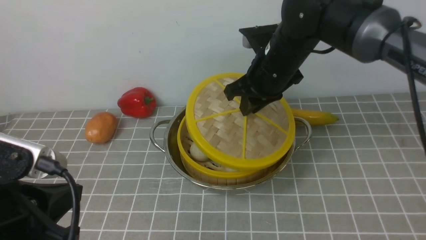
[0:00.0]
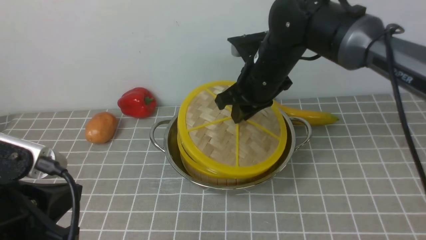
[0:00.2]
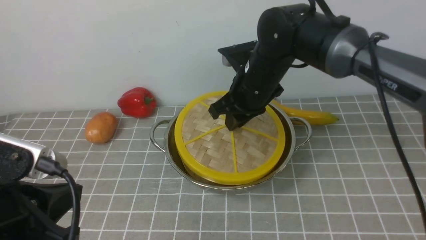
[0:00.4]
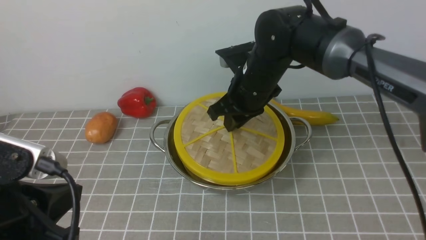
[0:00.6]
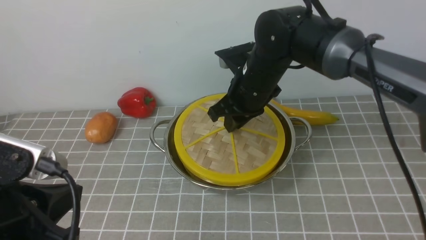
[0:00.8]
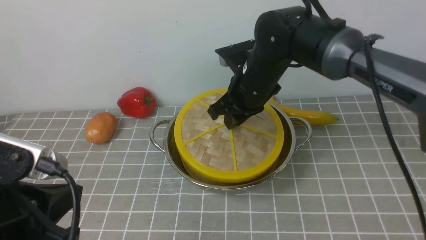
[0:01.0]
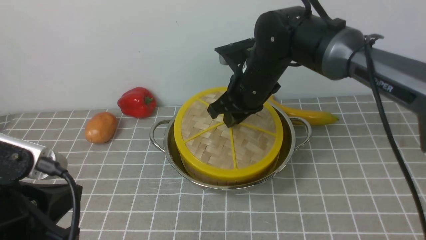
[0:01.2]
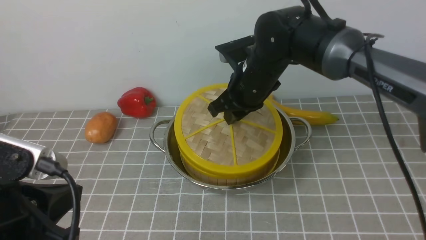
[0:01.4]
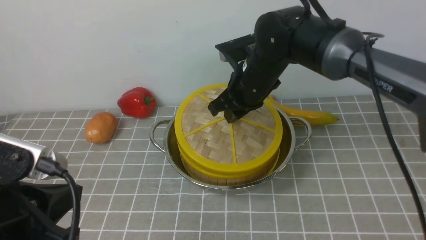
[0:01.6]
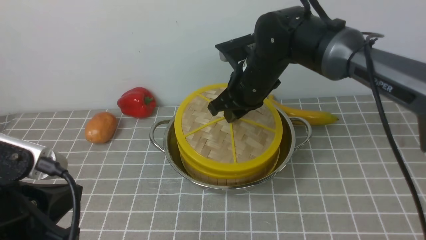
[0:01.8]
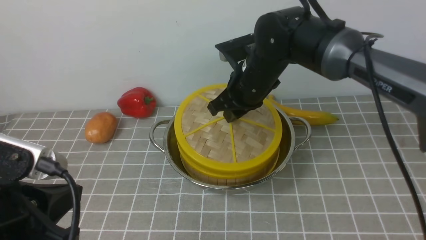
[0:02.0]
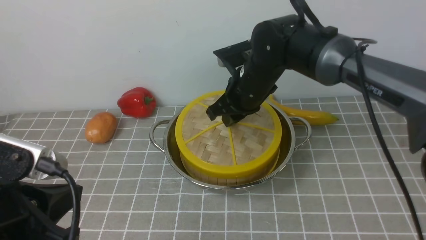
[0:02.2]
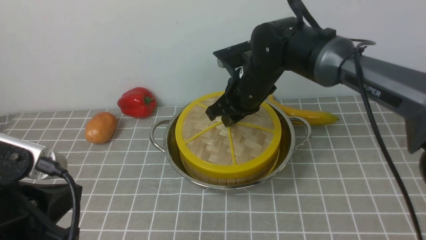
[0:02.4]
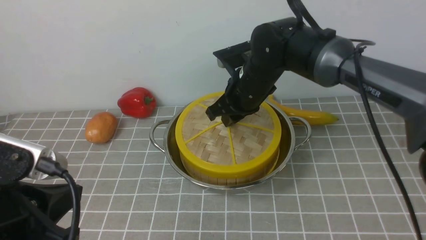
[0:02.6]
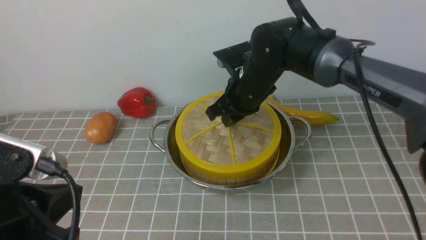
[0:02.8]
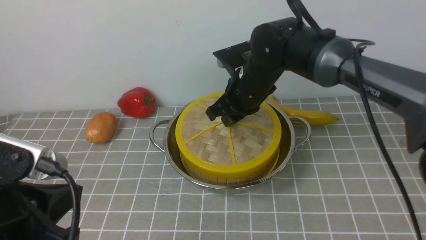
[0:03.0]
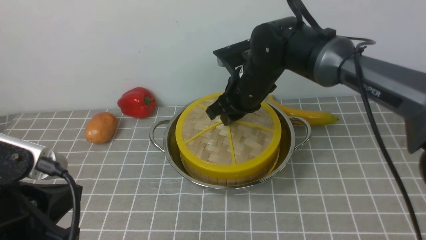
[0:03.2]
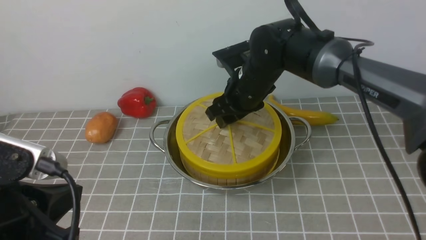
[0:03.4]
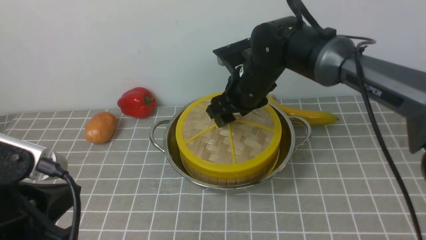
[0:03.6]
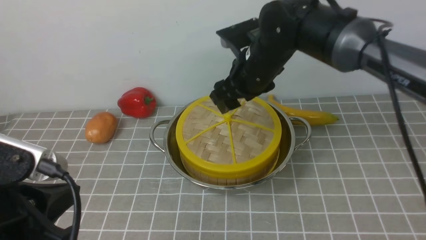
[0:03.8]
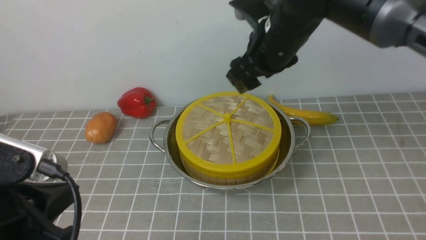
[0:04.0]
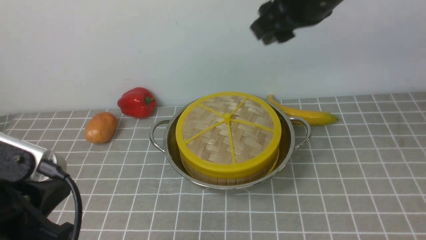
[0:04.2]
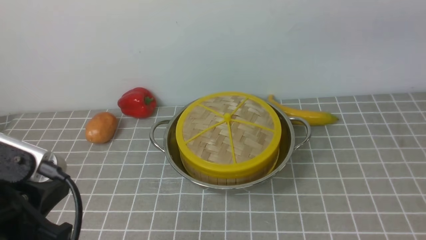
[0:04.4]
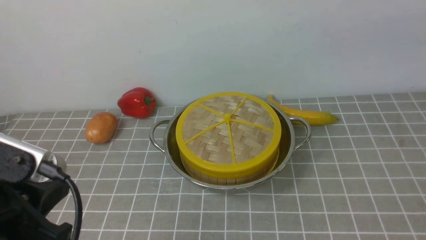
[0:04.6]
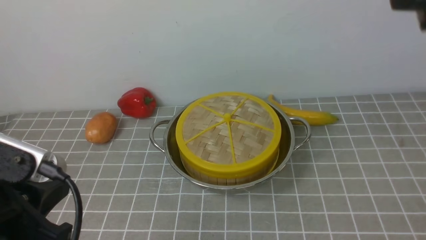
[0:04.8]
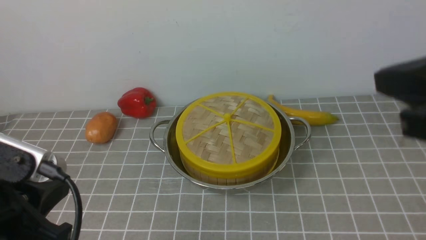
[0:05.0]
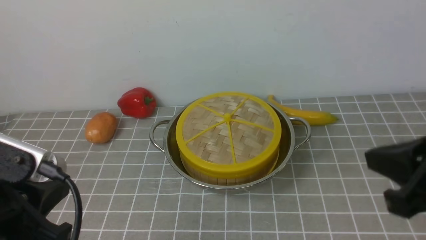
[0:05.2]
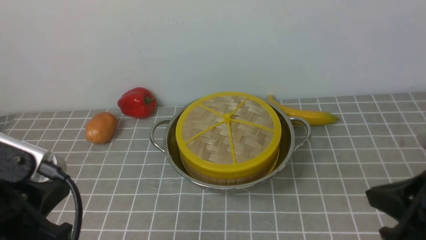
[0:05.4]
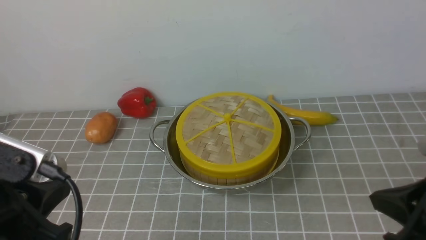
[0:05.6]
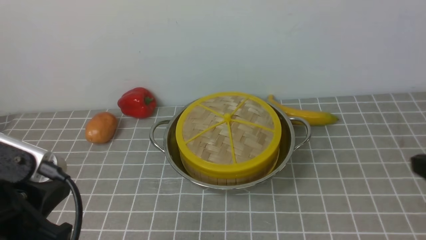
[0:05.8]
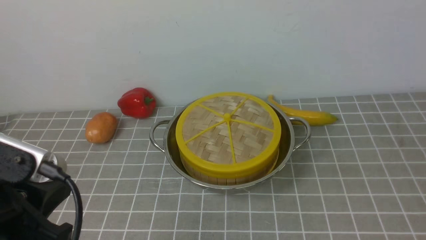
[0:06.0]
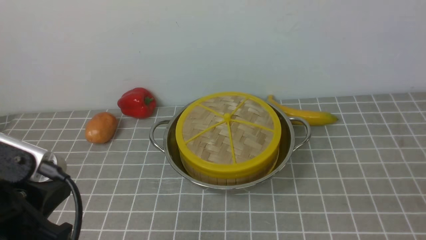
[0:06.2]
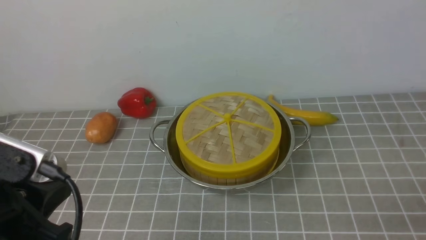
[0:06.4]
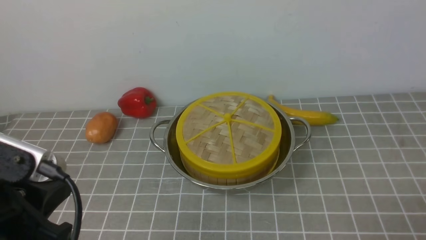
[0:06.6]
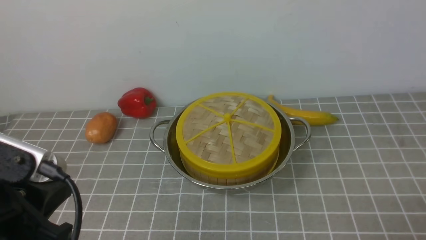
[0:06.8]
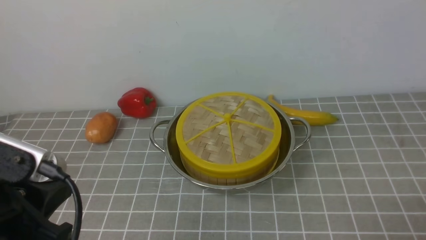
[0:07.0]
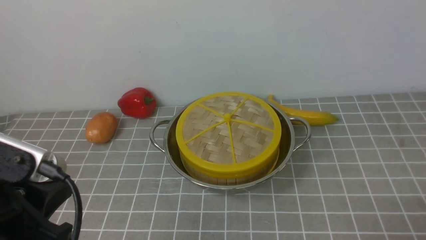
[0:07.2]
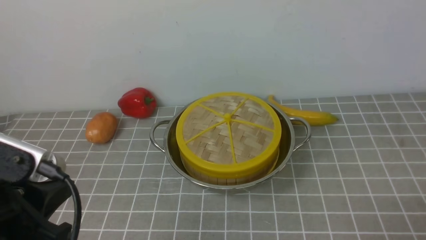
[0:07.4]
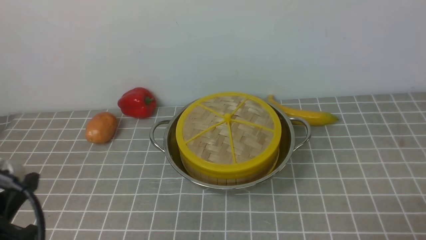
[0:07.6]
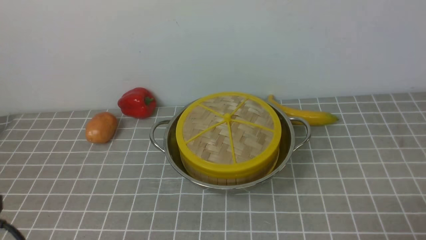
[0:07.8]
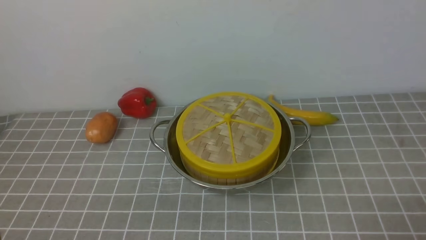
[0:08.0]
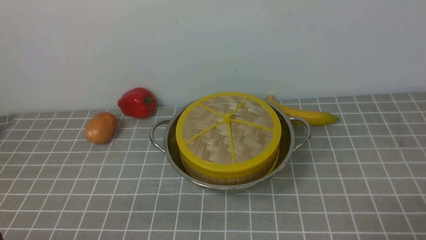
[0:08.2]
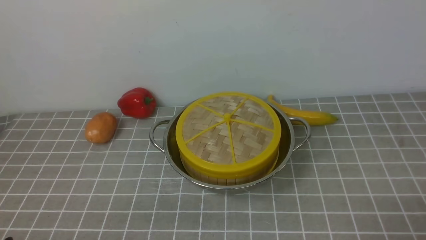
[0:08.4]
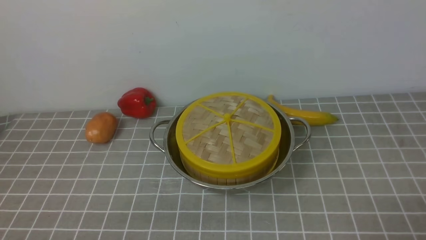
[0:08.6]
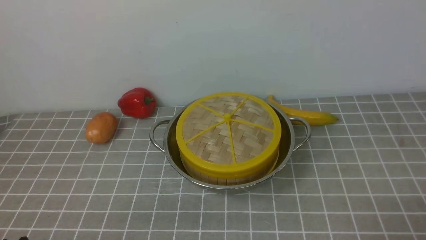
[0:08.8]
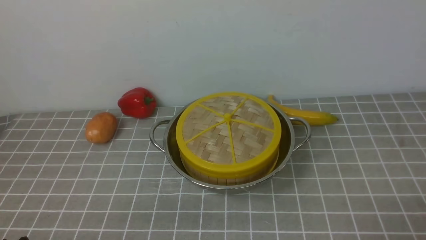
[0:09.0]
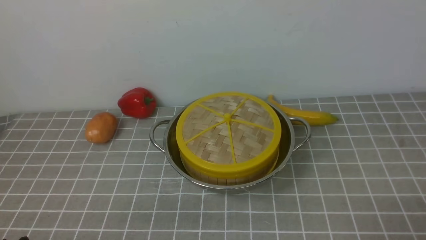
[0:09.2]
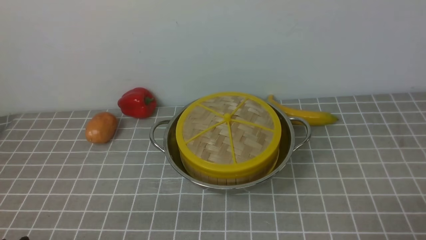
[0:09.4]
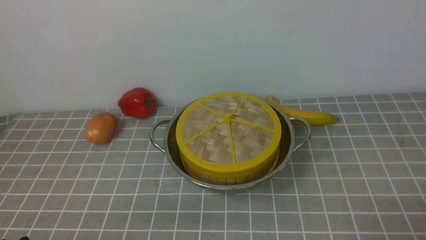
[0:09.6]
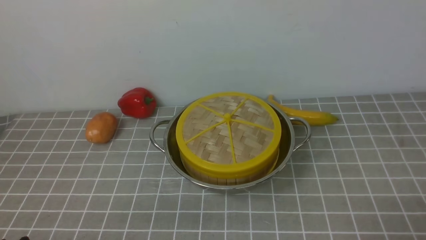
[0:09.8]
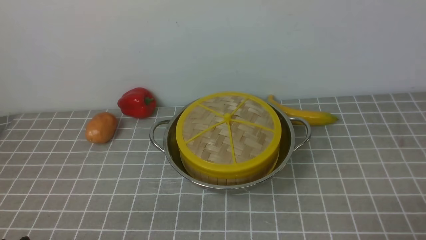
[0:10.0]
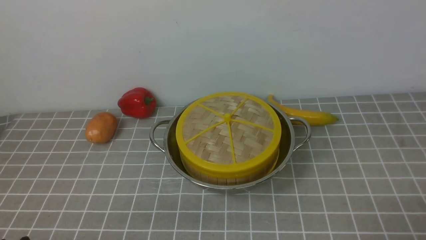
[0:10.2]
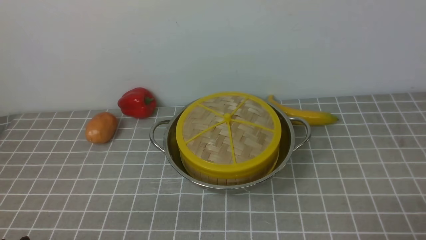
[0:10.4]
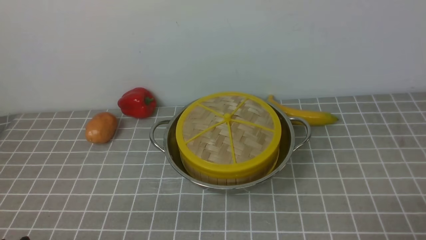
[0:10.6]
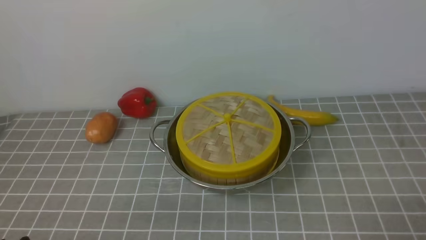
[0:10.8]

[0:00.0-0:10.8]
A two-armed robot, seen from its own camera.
Task of the whole recording: place the steamer in the pot on the grey tablecloth, and put the lid on the steamer.
Step, 0:00.0 to 0:03.8: use the right arm to place the steamer lid on the steamer.
0:00.0 to 0:03.0: The grippers make only small movements.
0:03.0 to 0:04.6: The right gripper is displaced upward, backward and to the right by approximately 35 cm, and closes.
0:06.2 to 0:07.8: The left gripper heads backward, covering roughly 5 cm.
0:09.2 to 0:10.8: Neither gripper changes place.

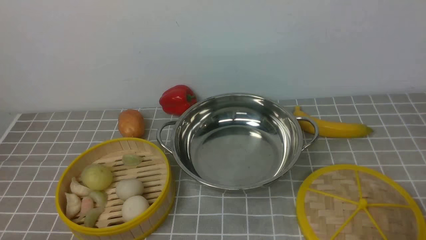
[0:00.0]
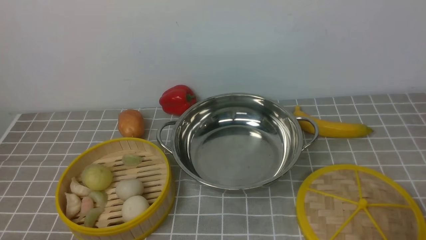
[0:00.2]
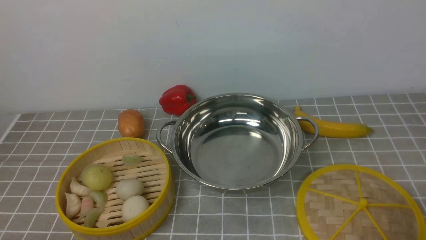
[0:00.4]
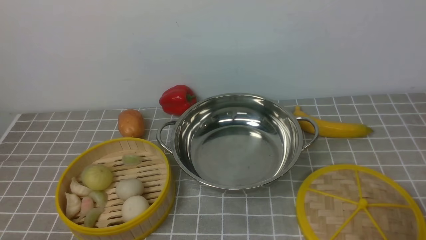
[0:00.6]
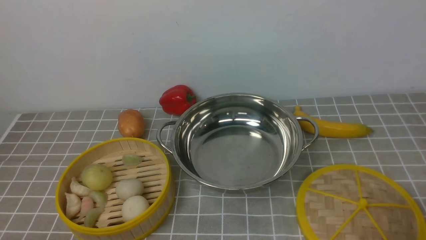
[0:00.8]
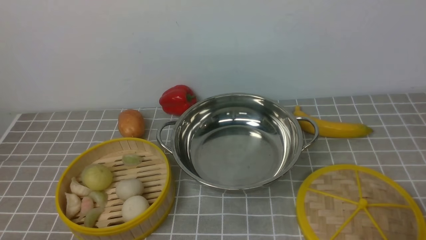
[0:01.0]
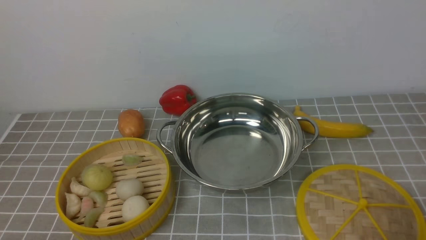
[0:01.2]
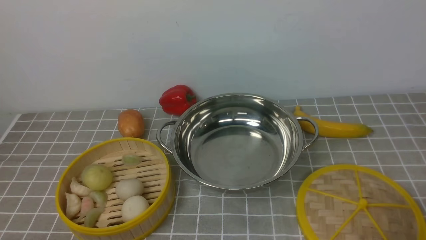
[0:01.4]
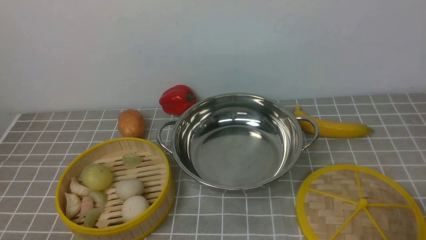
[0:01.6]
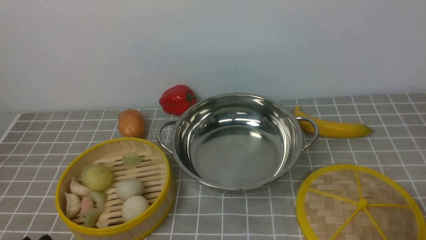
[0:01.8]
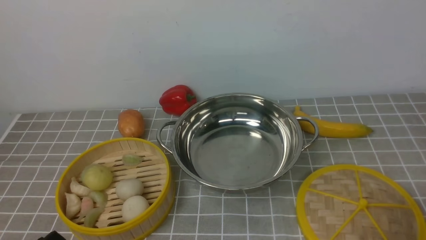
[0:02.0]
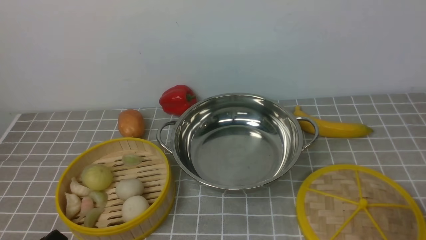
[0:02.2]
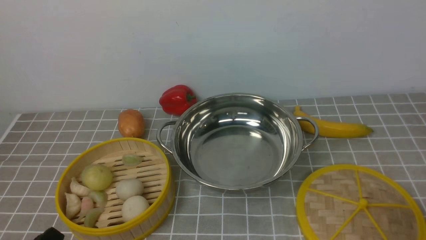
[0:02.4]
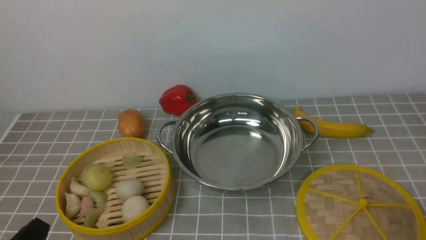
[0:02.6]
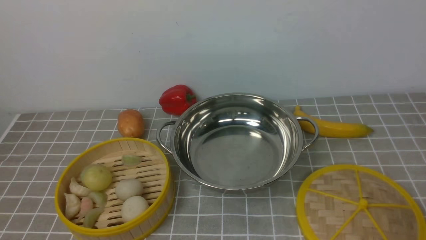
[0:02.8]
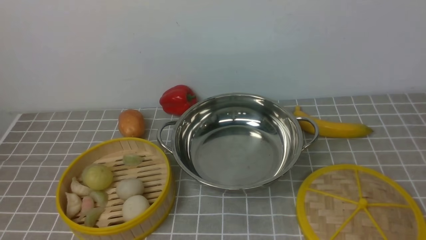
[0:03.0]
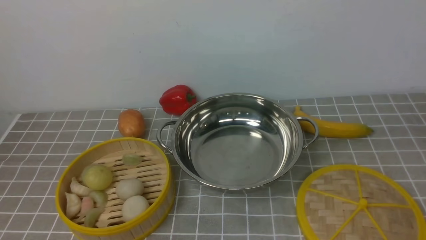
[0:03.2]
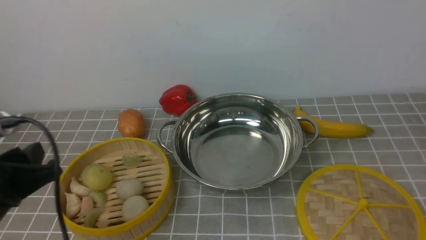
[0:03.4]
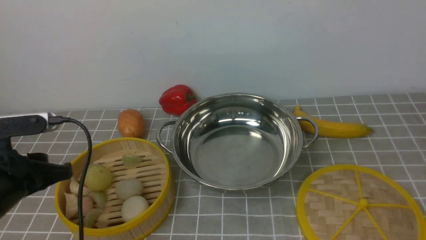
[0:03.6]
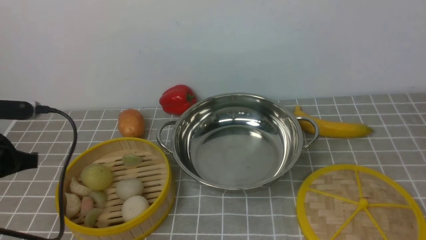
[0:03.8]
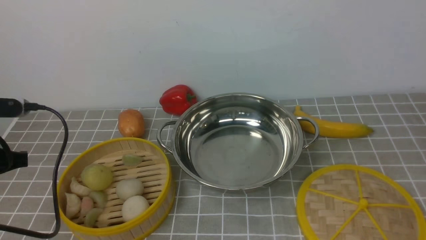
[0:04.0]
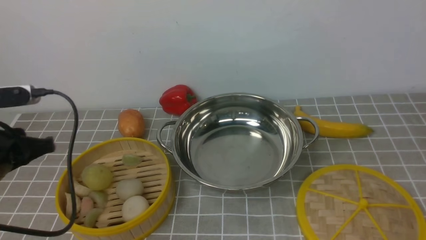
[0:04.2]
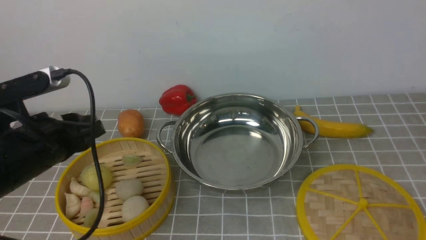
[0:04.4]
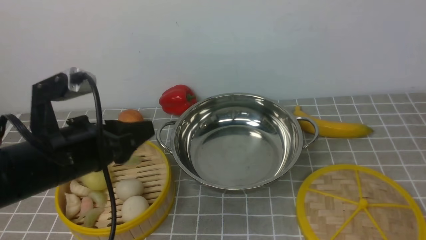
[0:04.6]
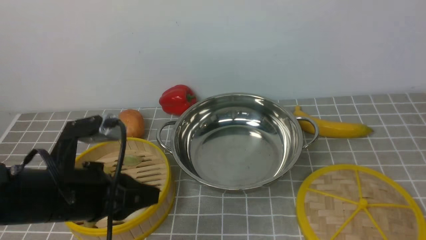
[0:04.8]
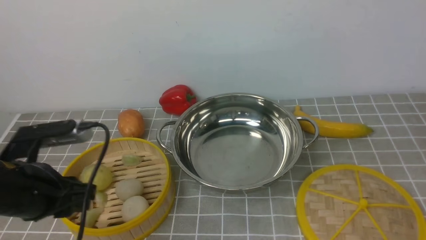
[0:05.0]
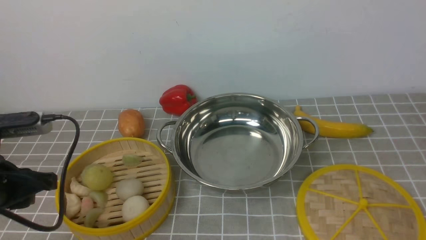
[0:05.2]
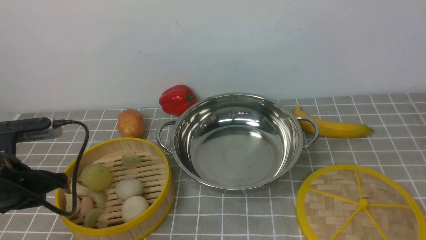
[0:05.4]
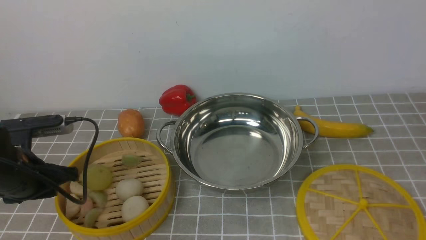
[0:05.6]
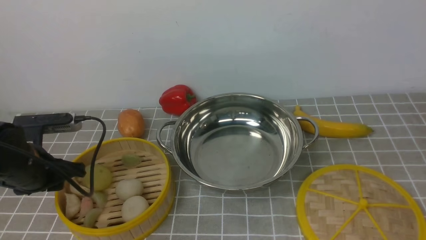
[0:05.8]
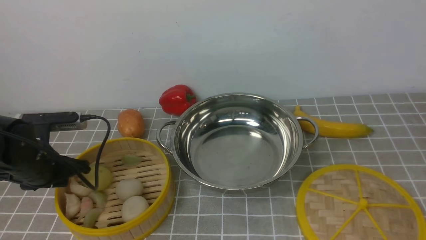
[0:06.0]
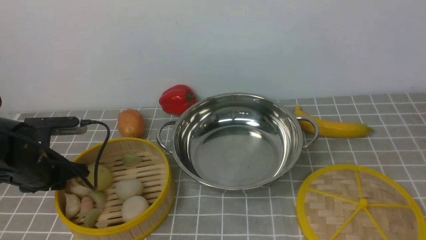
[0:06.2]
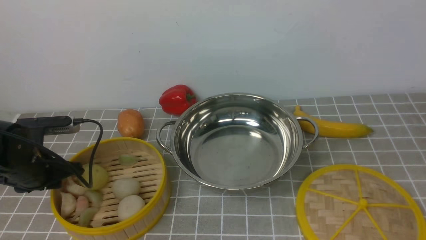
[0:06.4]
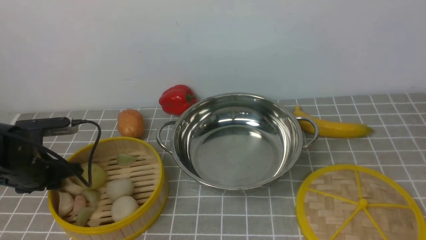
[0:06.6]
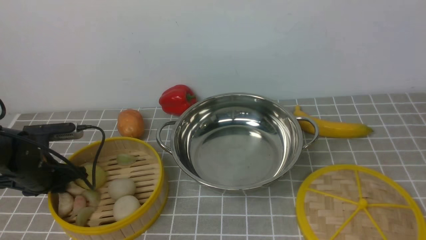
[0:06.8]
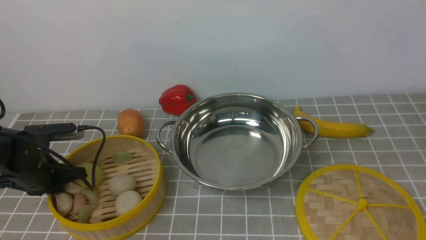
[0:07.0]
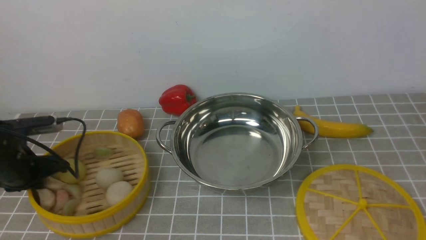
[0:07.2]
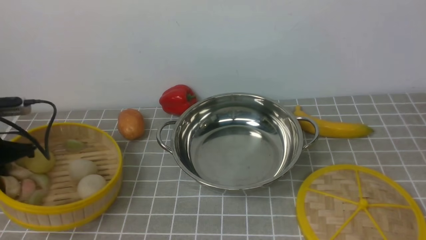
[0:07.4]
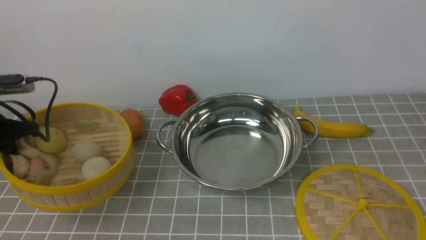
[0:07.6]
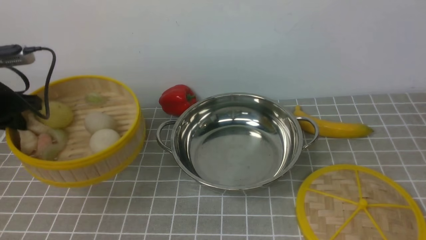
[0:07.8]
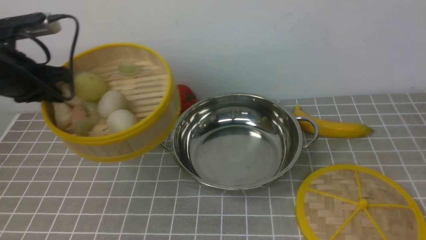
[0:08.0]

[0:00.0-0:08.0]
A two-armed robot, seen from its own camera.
Task of the whole recording: place the steamer in the pot on the grey tablecloth, and put the lid on the steamer.
Step, 0:00.0 to 0:07.2: use the left arm to lift the steamer closest to it.
0:03.2 to 0:04.8: The left gripper goes some 10 cm forward and to the right.
0:04.8 to 0:06.4: The left gripper shifts roughly 15 cm to the left, forward and downward.
0:06.4 to 0:08.0: The left gripper moves upward and forward, about 15 cm, and closes its fingers.
